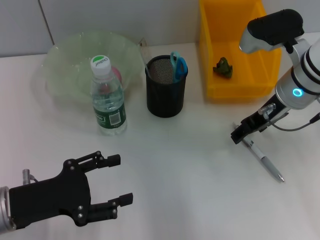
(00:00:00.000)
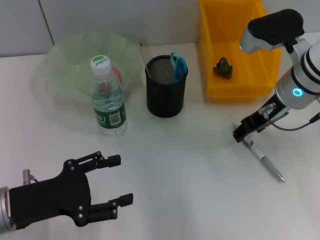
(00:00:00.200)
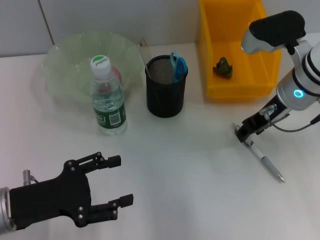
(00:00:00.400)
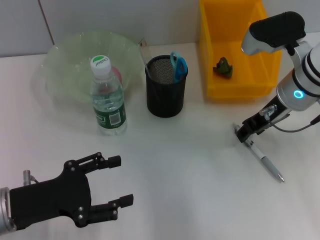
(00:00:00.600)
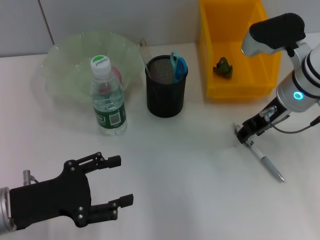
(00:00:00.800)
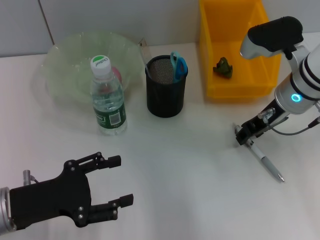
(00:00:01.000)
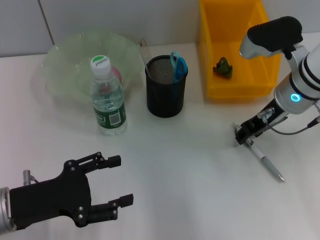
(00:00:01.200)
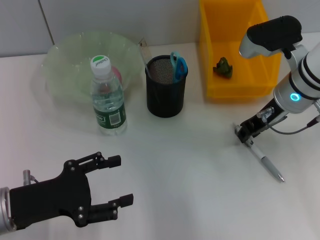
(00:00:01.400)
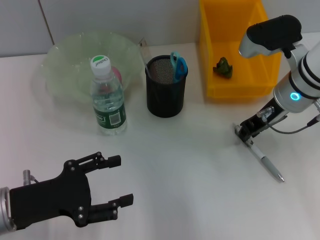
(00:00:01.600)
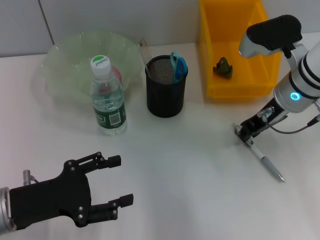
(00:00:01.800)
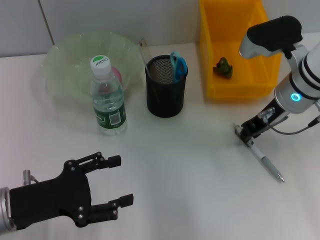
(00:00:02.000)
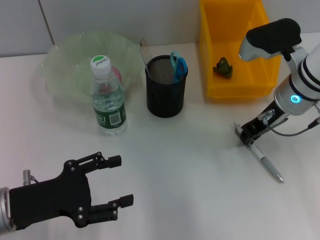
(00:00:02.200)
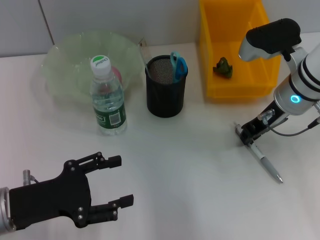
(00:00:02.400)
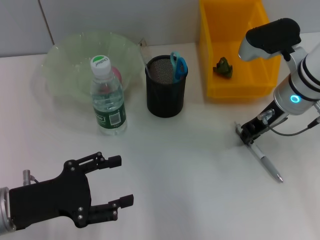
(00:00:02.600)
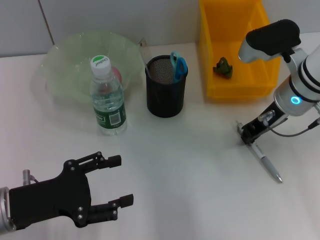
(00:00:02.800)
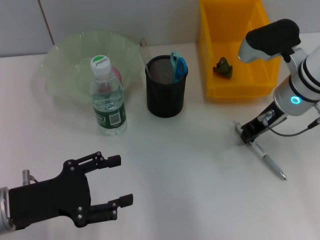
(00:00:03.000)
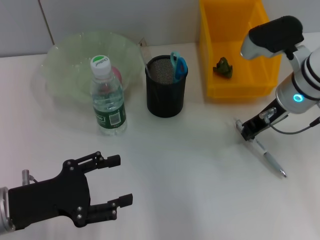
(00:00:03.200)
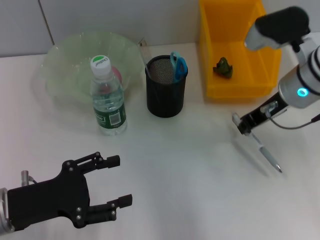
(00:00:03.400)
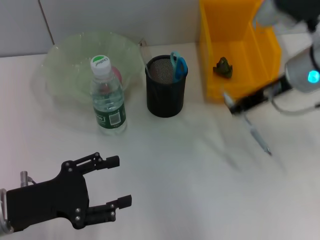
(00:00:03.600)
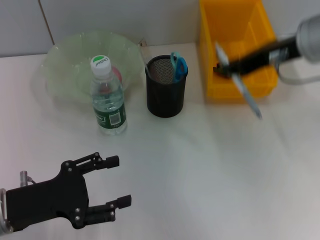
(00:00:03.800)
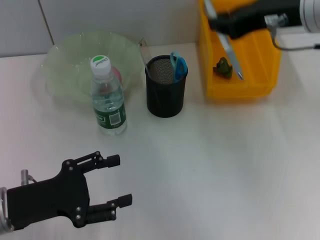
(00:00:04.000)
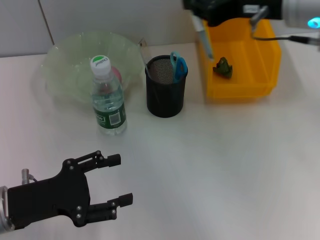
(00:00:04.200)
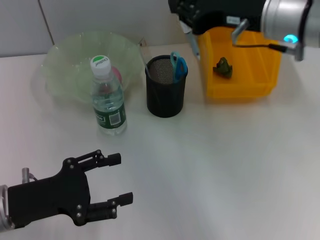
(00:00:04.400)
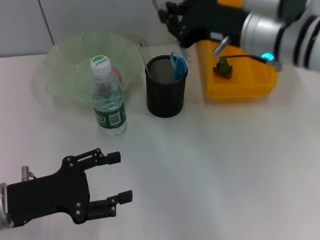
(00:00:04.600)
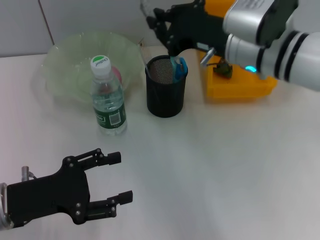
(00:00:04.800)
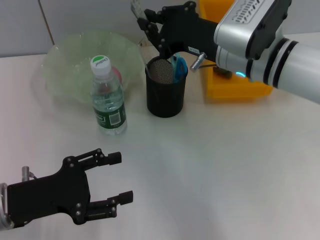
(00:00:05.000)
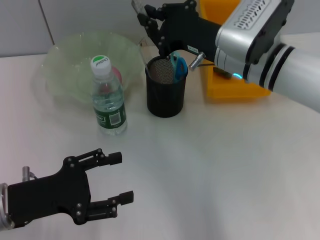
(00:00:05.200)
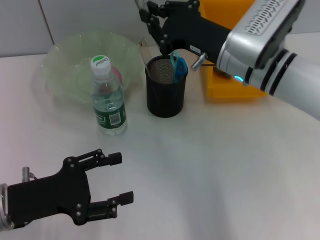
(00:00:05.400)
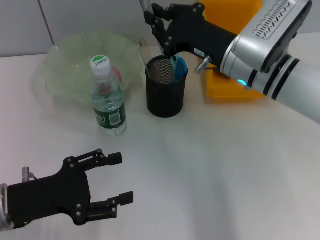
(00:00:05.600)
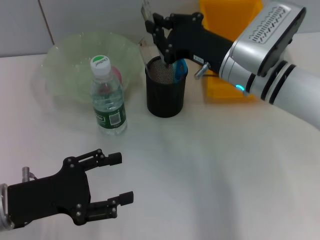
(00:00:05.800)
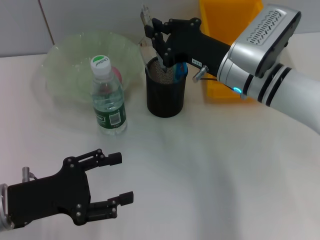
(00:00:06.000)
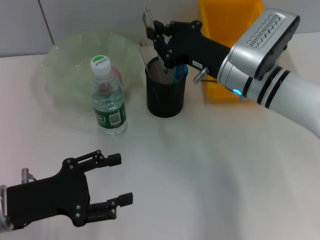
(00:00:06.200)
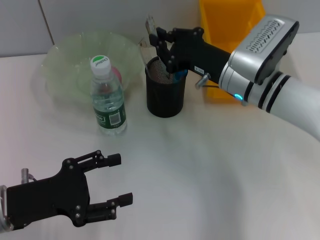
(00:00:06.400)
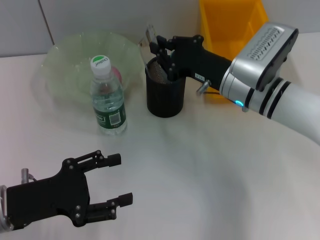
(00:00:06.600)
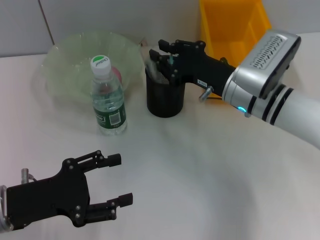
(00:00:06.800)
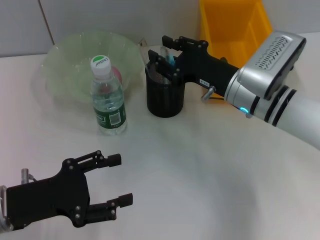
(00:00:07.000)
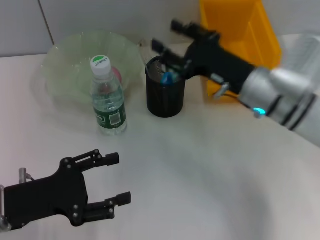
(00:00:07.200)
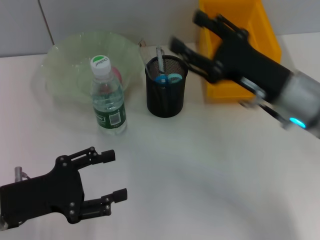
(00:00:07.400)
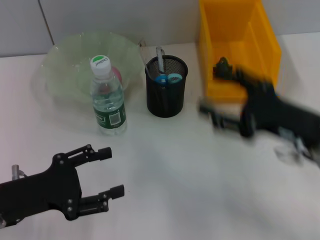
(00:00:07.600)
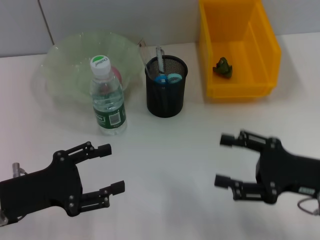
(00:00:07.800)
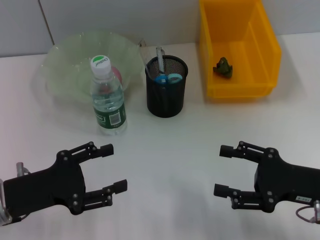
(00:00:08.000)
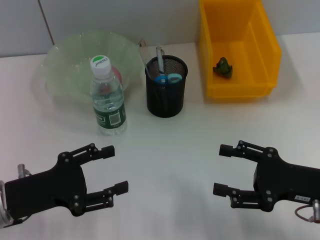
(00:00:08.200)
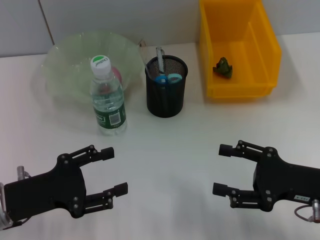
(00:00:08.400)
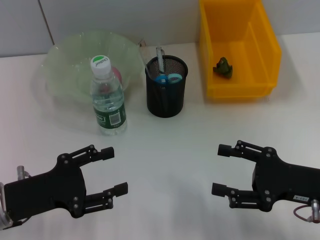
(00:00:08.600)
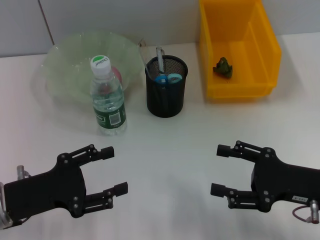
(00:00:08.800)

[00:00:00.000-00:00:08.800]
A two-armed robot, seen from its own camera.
Step, 00:00:00.000 to 00:00:02.800: Grab the gray spring-action pen with the right hand.
Step, 00:00:03.000 to 00:00:07.000: Place the gray spring-action pen into the pen holder with the right hand.
00:00:00.000 to 00:00:01.400: The right gripper closes.
00:00:01.400 to 00:00:03.000: Neither gripper changes place.
00:00:03.000 to 00:00:04.400: The right gripper goes approximately 10 cm upward.
00:00:04.400 to 00:00:05.800: The right gripper shifts some 10 cm downward.
00:00:05.800 to 00:00:07.400: The right gripper heads backward and to the right, covering roughly 10 cm, and opens up.
00:00:07.400 to 00:00:08.800: The right gripper is displaced backward, downward and to the right by about 10 cm.
